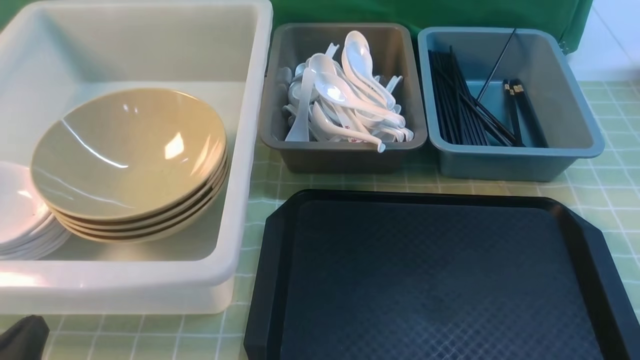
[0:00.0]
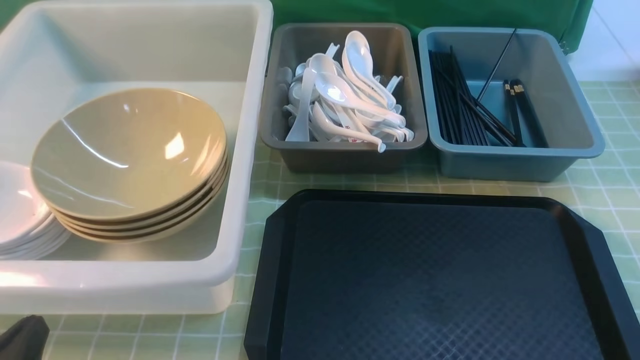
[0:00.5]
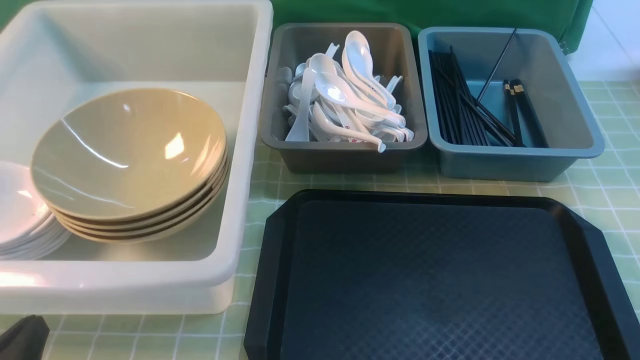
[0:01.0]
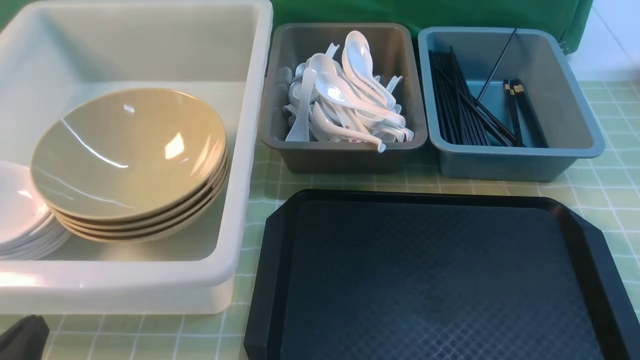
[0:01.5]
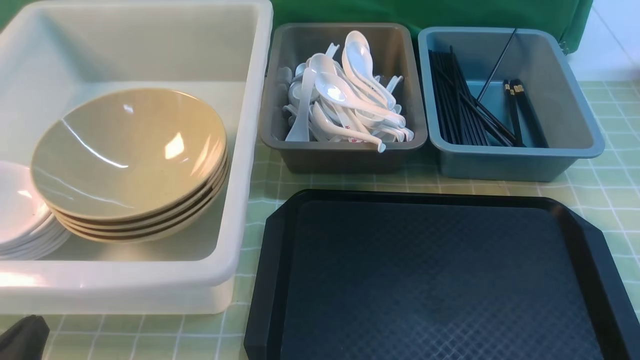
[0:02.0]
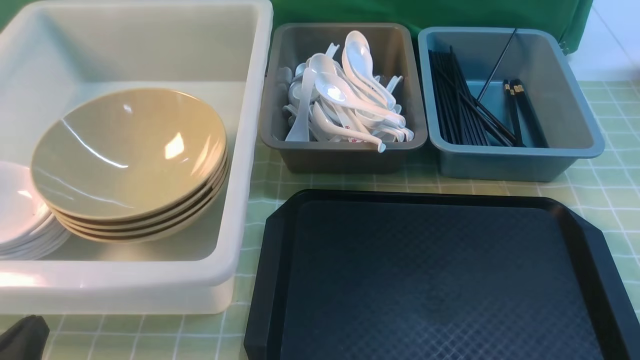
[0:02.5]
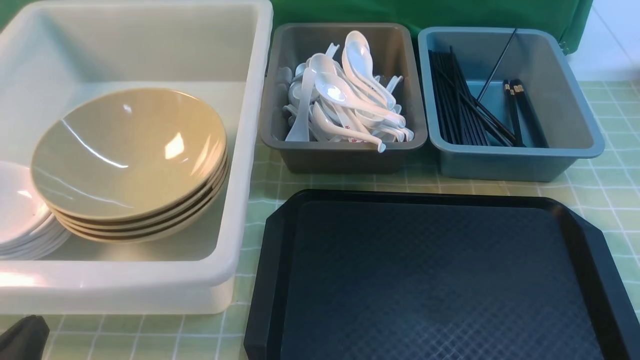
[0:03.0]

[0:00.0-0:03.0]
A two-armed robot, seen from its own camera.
Task of the whole recording: on green table put chopsticks spoon bowls plates into blue grey white boxes.
0:00.0 to 0:03.0: Both grippers stay about where they are.
